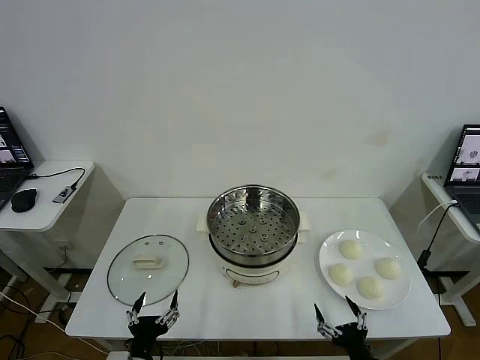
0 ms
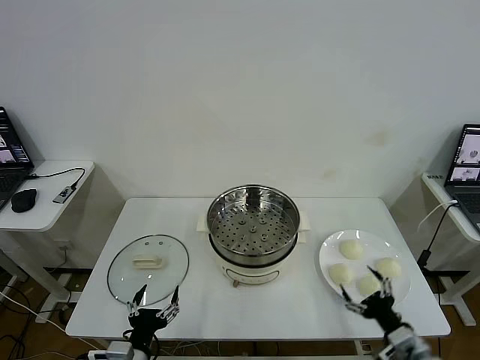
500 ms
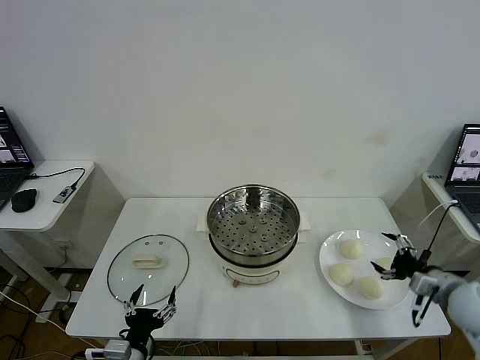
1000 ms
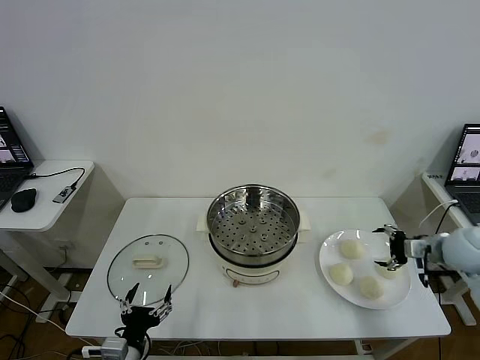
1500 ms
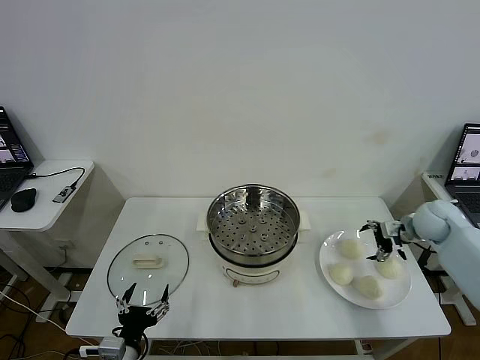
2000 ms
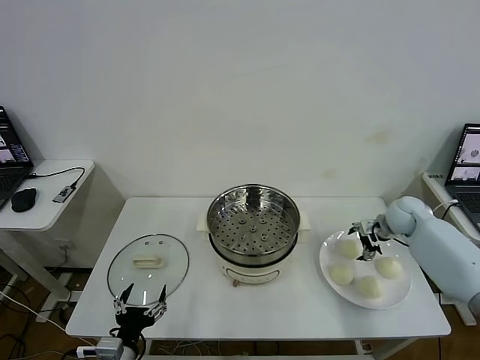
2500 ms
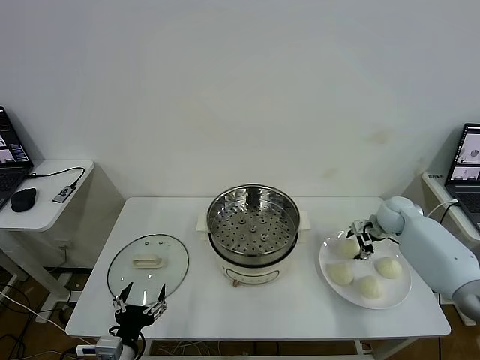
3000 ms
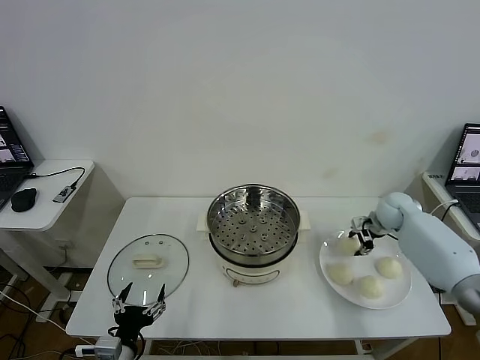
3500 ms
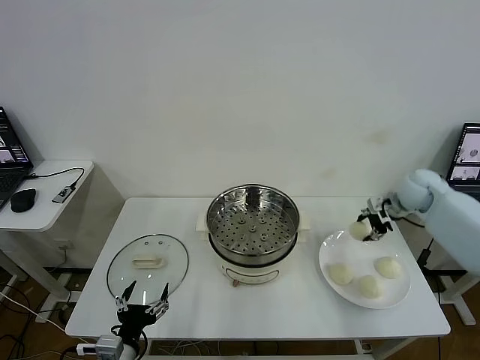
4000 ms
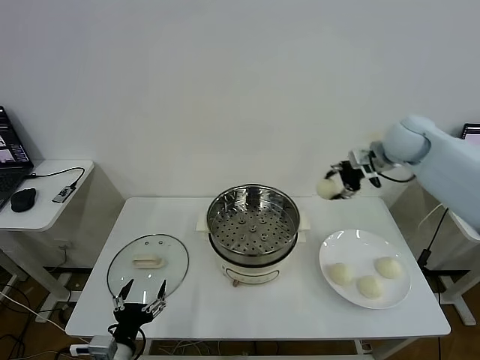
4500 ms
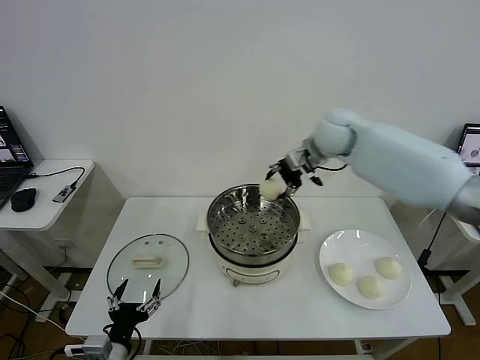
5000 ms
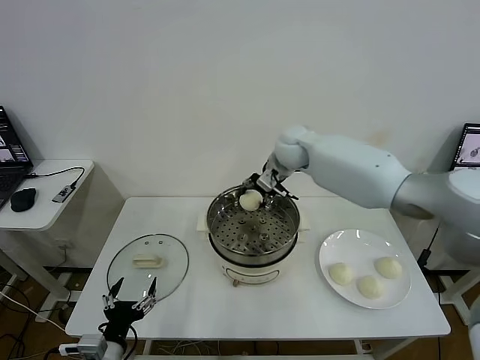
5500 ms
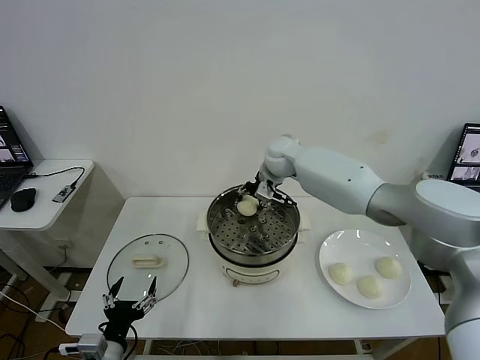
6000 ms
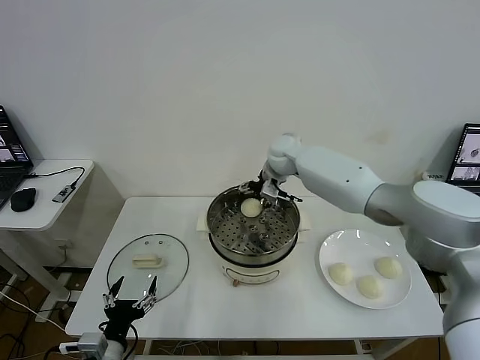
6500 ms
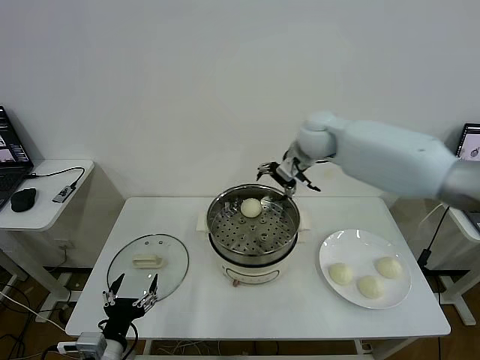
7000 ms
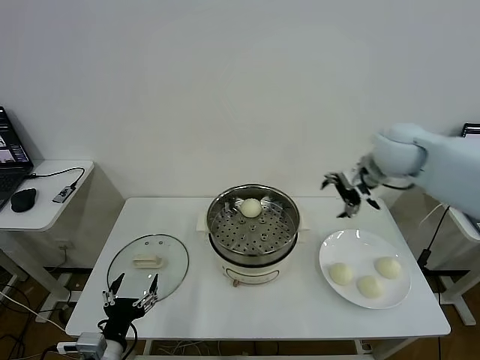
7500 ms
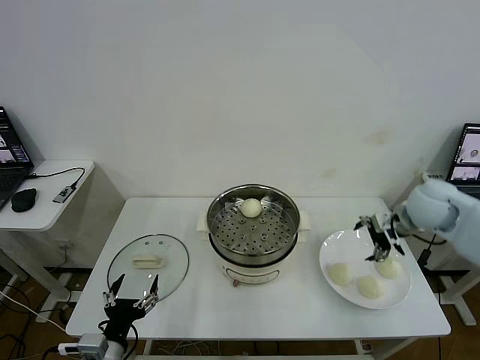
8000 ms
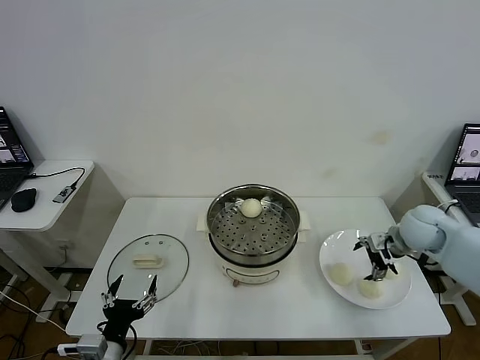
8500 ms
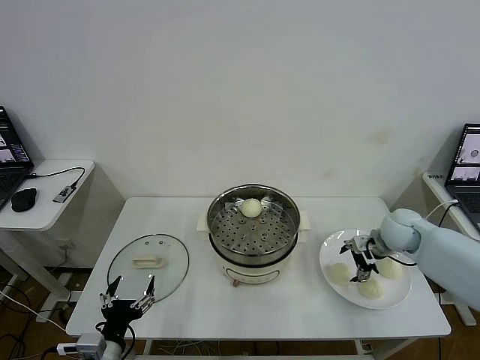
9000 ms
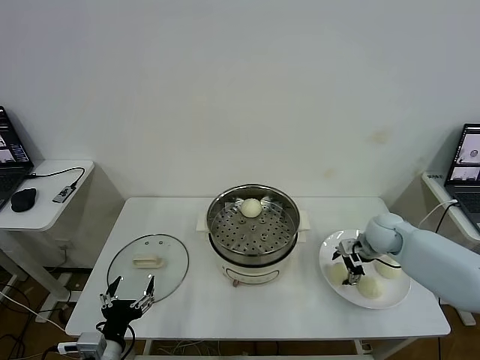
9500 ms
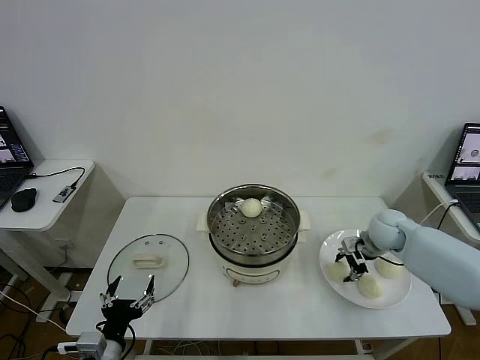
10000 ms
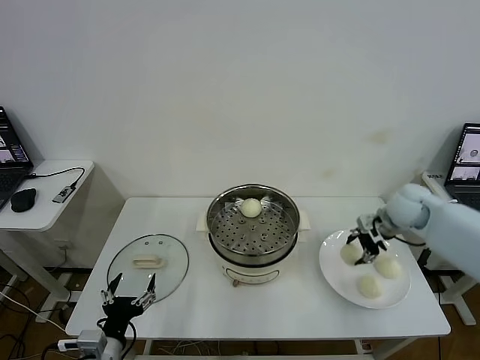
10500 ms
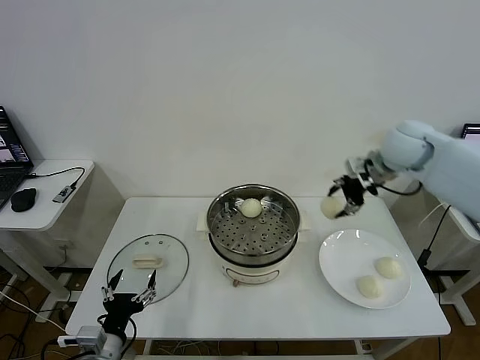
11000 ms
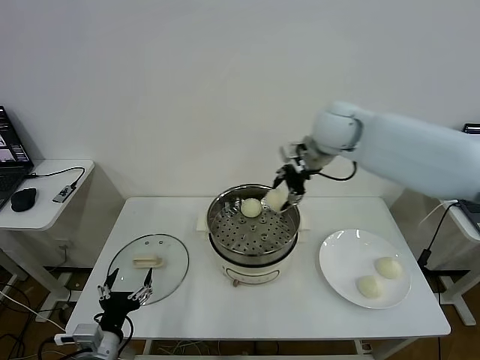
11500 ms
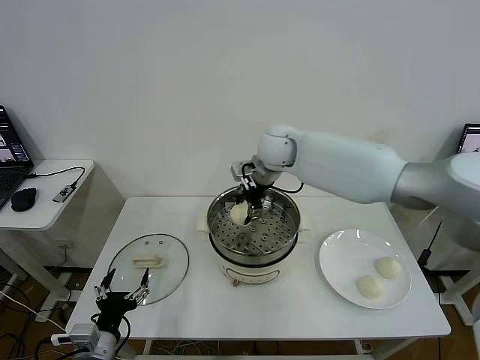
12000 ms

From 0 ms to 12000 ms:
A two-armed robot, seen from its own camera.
Task of the whole recording: take steamed baozi put them in steamer then cover it.
Step, from 0 ms to 3000 ms: Grasp the baozi in the plate with right gripper.
Step, from 3500 ms to 6000 ms: Place the baozi on the steamer with right gripper.
Step, from 6500 ms to 10000 ms: Grasp the baozi in the plate with right gripper.
From 2000 ms to 4000 ms: The right gripper travels upward by roughly 10 cm, and closes up.
From 4000 ms to 6000 ms: The right gripper moves to the left, roughly 30 cm.
From 6000 ms to 8000 ms: The right gripper shifts about 35 cm to the right and backward, and opens its fingers.
From 8000 ms to 10000 ms: The right gripper heads downward, covering roughly 10 cm, and closes.
From 10000 ms to 12000 ms: The right gripper goes roughly 35 cm to the left and upward.

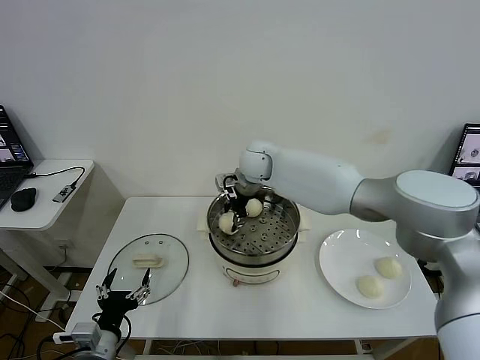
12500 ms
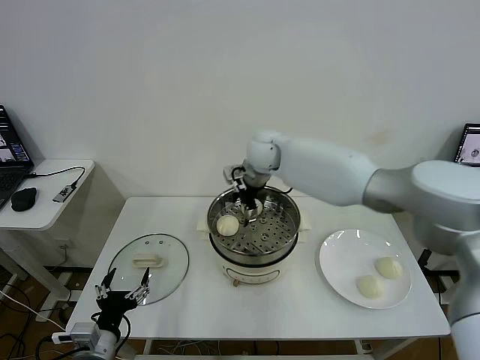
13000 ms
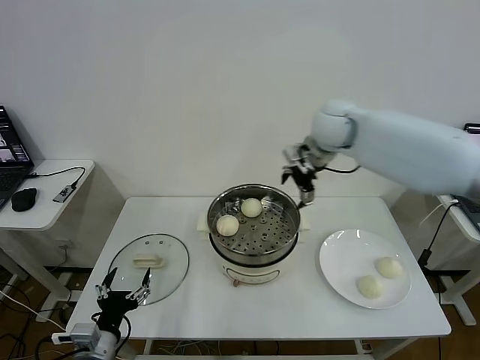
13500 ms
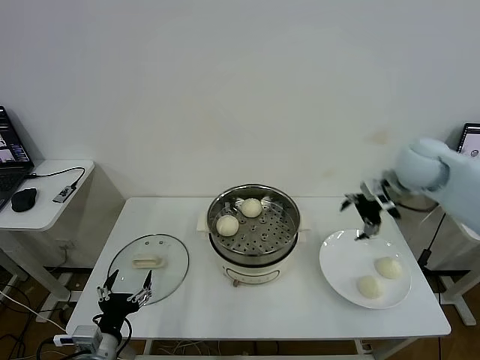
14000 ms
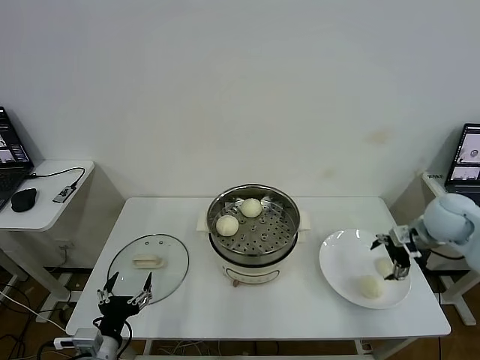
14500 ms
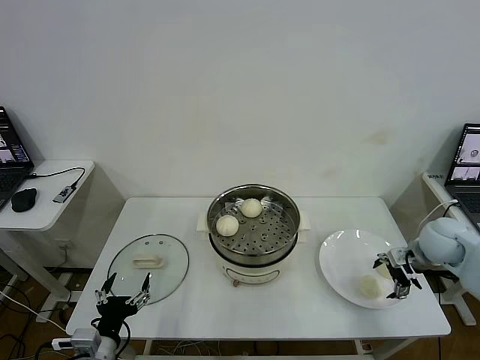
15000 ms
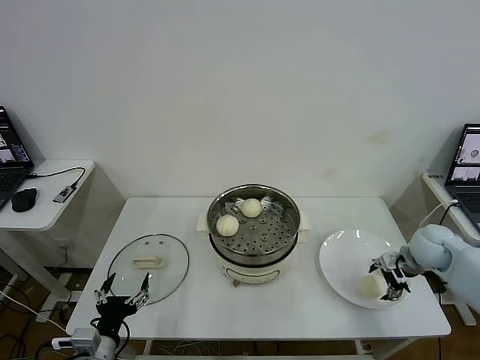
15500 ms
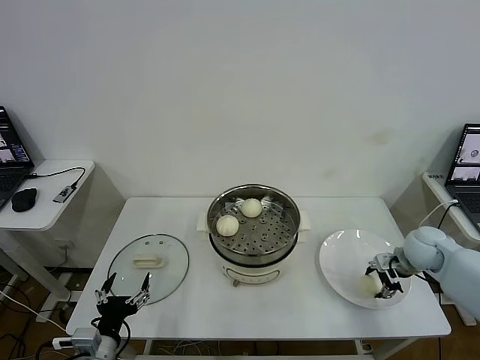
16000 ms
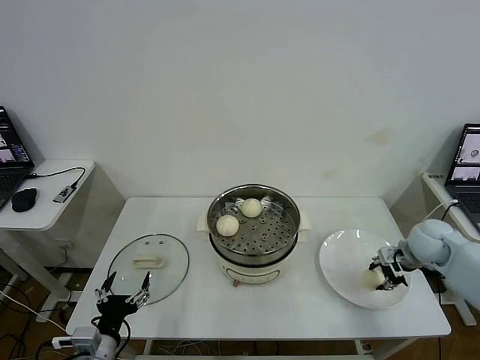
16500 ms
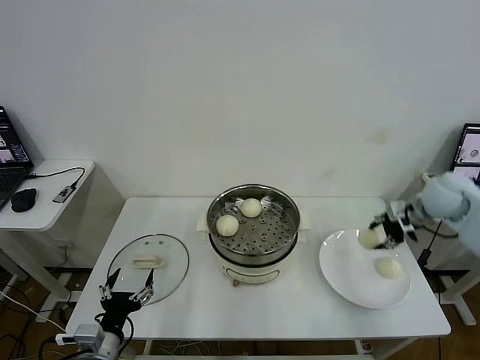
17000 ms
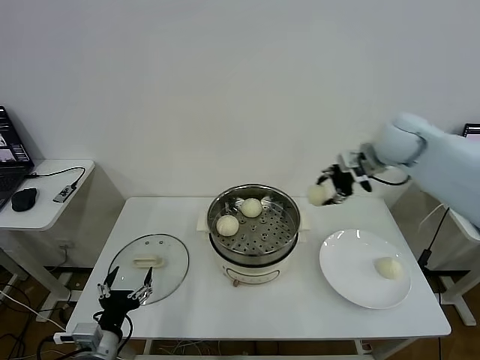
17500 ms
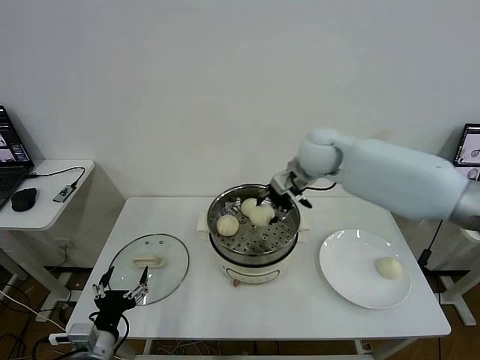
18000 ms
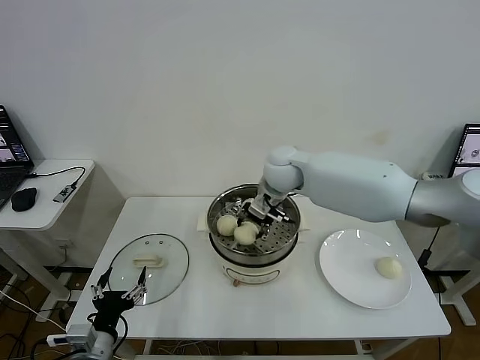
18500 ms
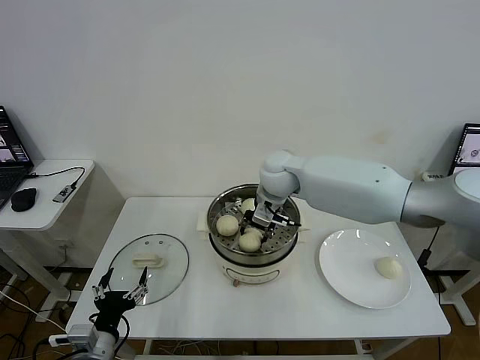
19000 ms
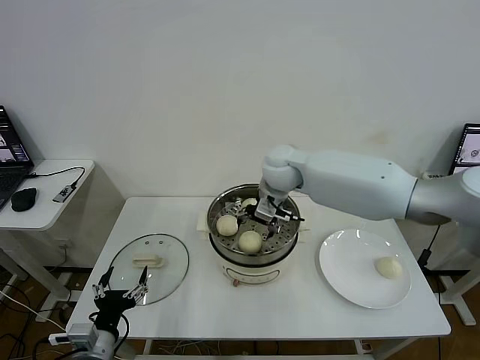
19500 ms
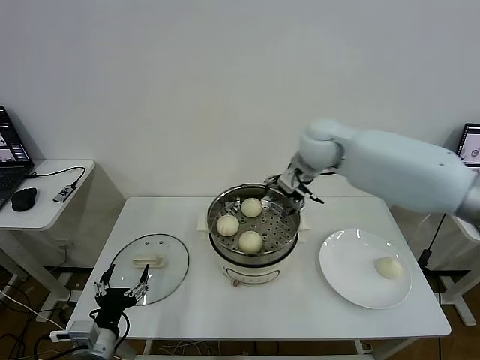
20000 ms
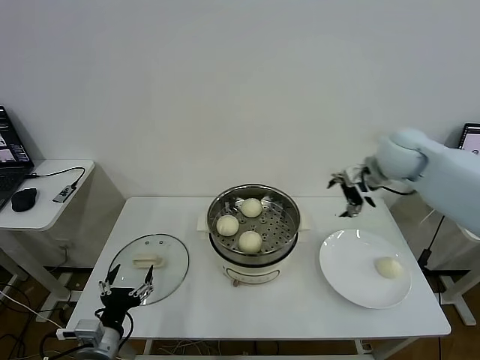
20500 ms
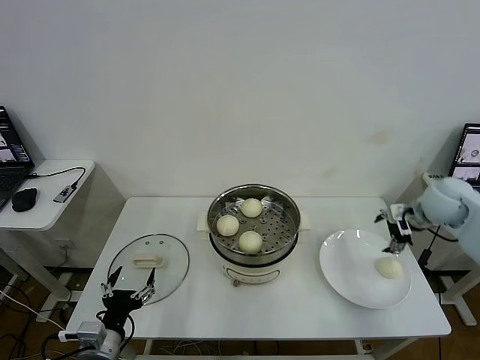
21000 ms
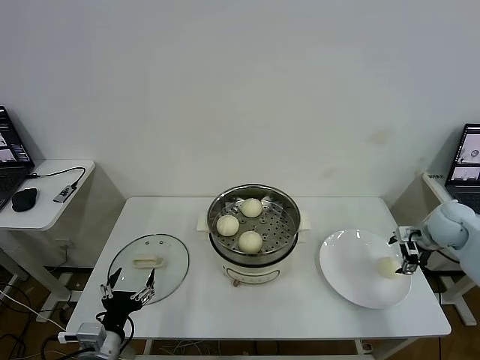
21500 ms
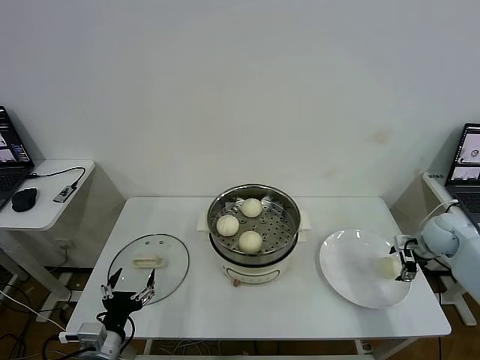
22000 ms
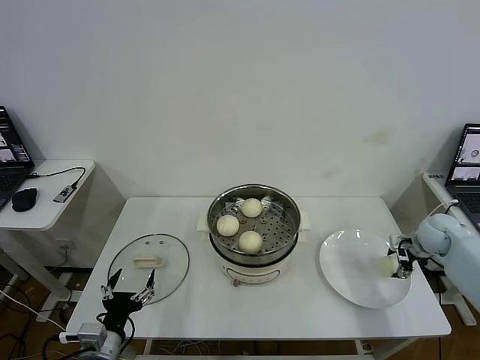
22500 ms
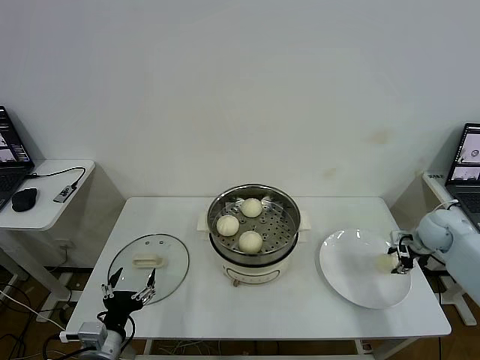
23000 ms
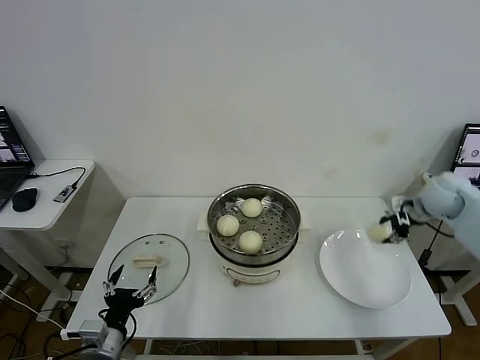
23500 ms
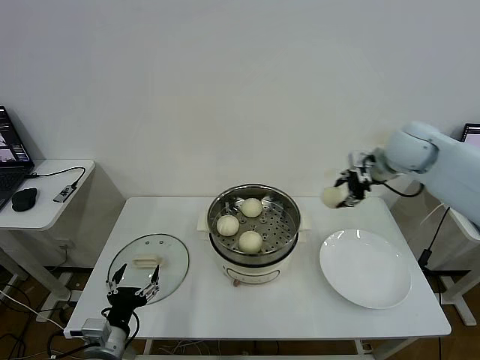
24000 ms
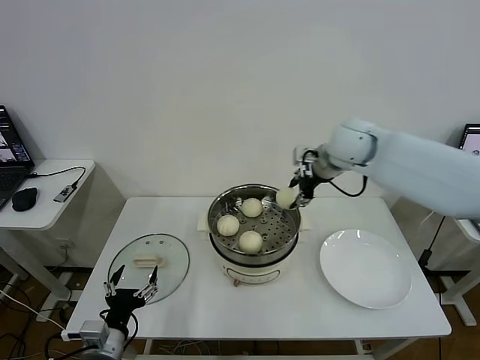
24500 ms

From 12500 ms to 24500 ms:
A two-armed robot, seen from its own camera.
Task of the whole recording: take steamed baozi put them in steamer then cover it.
Step, from 13000 ms to 16000 ms: Grasp the baozi in the plate with right gripper.
Step, from 16500 ms to 19000 ms: Place the baozi on the steamer with right gripper.
Step, from 20000 ms to 22500 ms: Grasp the baozi in the plate with right gripper.
From 12500 ms to 14500 ms: The right gripper moves to the right, roughly 40 cm, and opens.
From 14500 ms to 16500 ms: The right gripper moves downward, approximately 5 cm, and closes.
From 16500 ms to 18500 ms: The right gripper goes about 35 cm to the left.
From 18500 ms to 20500 ms: The right gripper goes roughly 25 cm to the right, and opens.
From 20500 ms to 22500 ms: The right gripper moves downward and to the right, approximately 25 cm, and closes its fingers.
From 22500 ms to 24500 ms: The right gripper heads to the left and upward, covering some 35 cm.

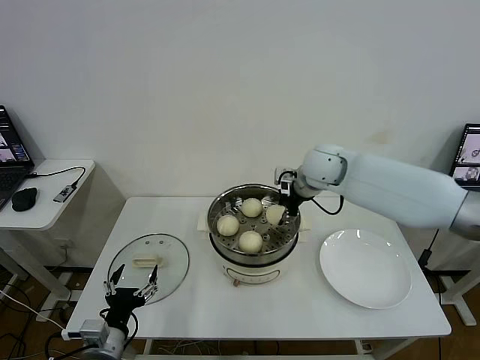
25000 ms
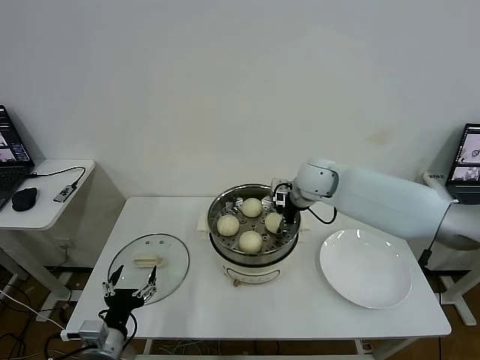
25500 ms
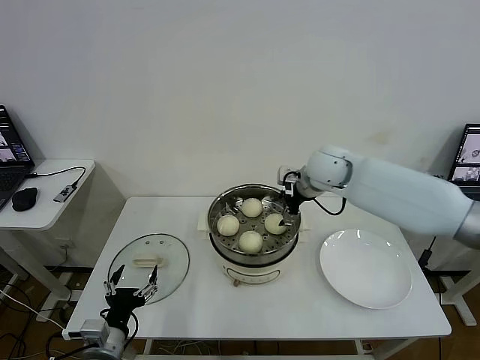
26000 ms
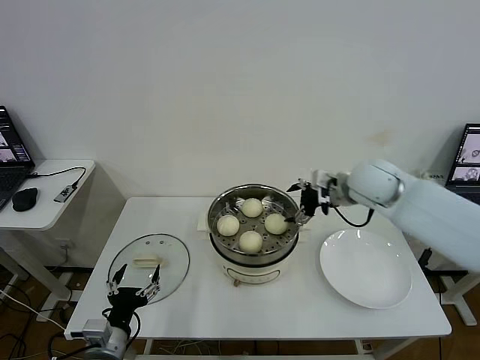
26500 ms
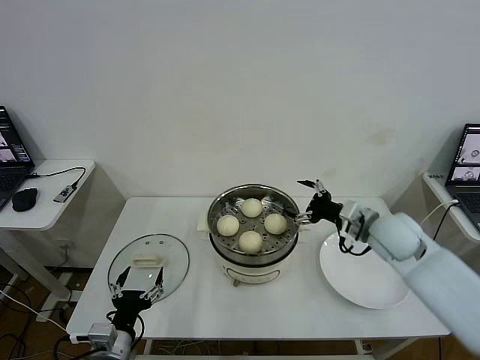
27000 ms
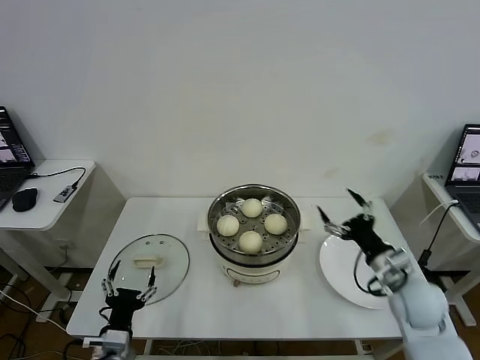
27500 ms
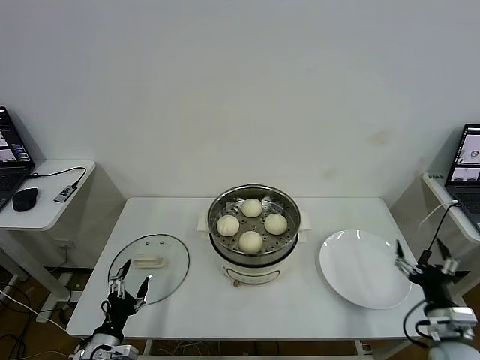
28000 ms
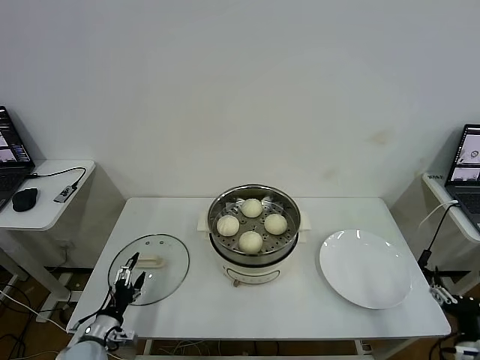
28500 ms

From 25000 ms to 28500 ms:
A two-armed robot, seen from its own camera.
Task of the whole recording: take steamed baozi put them in steamer then cover it.
From 25000 ms to 27000 ms: The right gripper shifts approximately 20 cm backward, to the right and downward, and opens.
From 27000 ms to 28500 ms: The right gripper moves backward, downward and to the right, some 30 cm. Meanwhile the left gripper heads downward, to the left and forward, covering approximately 15 cm.
